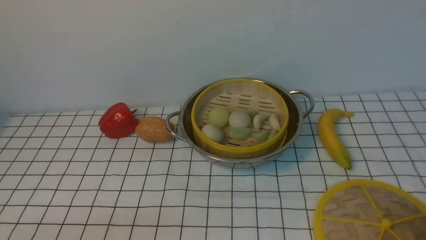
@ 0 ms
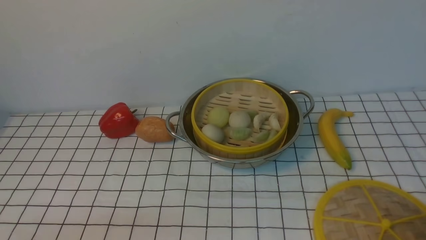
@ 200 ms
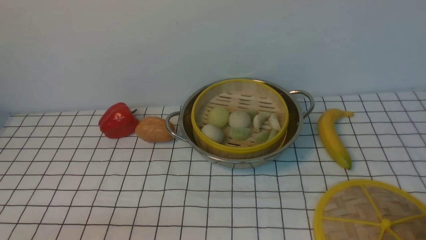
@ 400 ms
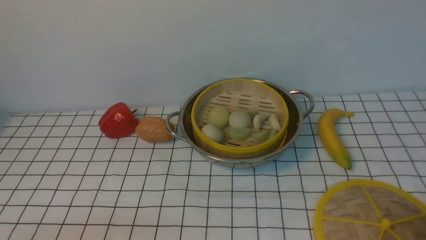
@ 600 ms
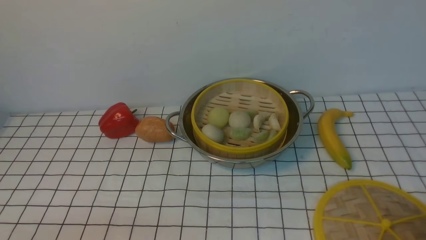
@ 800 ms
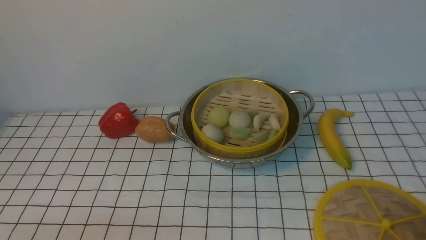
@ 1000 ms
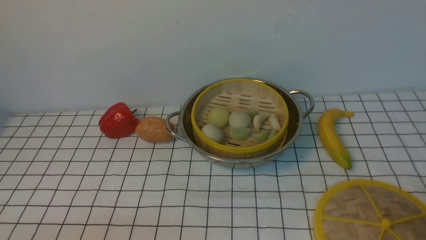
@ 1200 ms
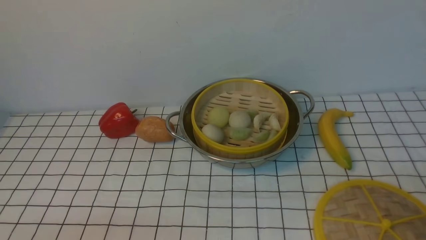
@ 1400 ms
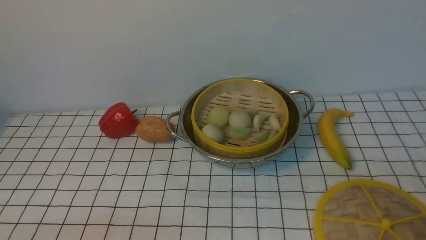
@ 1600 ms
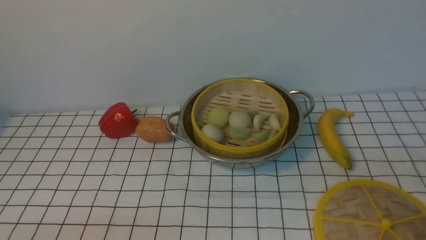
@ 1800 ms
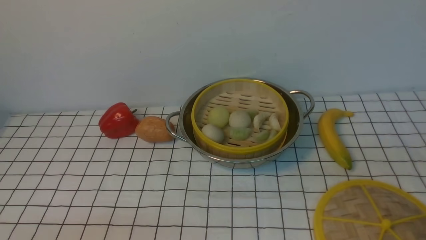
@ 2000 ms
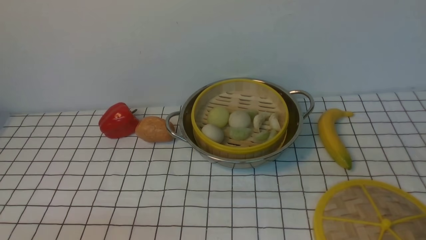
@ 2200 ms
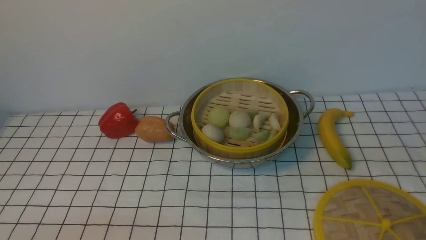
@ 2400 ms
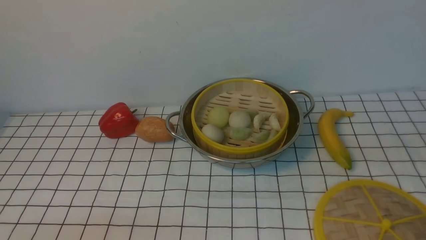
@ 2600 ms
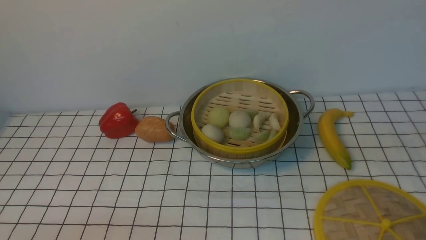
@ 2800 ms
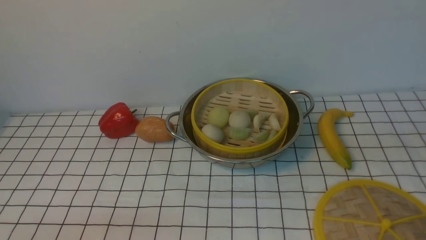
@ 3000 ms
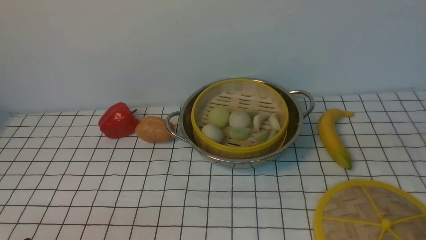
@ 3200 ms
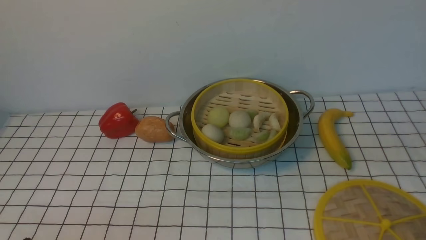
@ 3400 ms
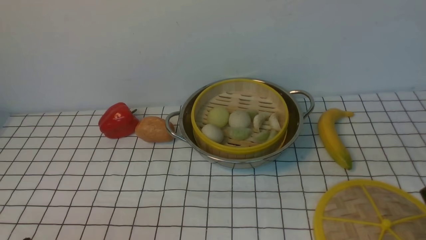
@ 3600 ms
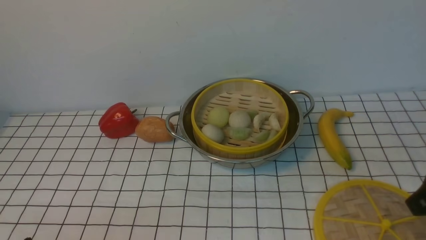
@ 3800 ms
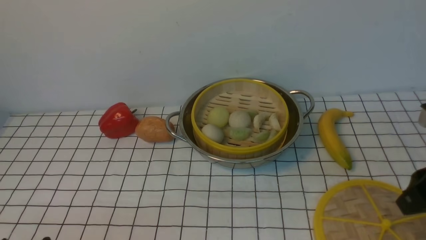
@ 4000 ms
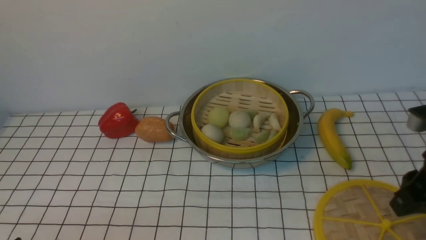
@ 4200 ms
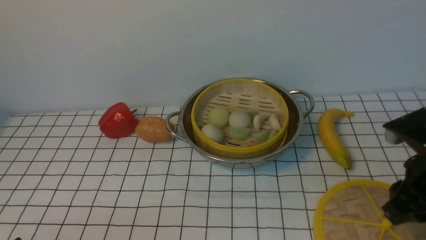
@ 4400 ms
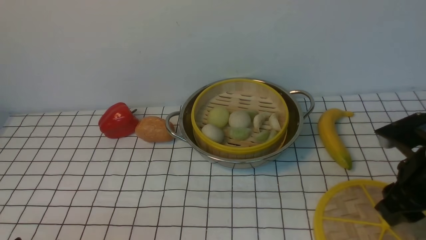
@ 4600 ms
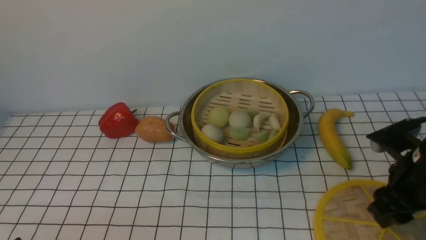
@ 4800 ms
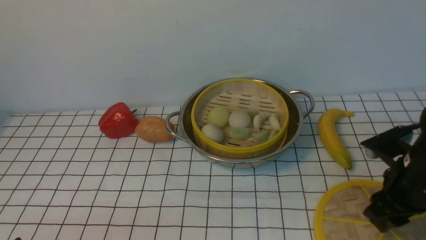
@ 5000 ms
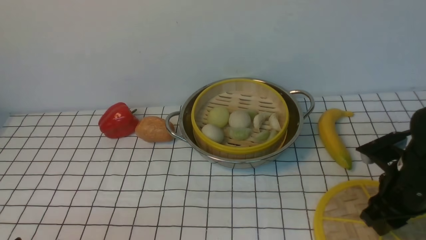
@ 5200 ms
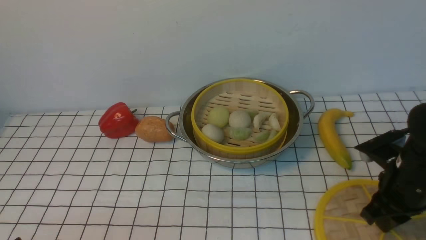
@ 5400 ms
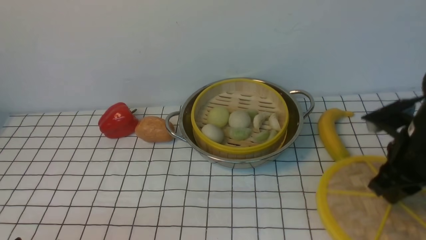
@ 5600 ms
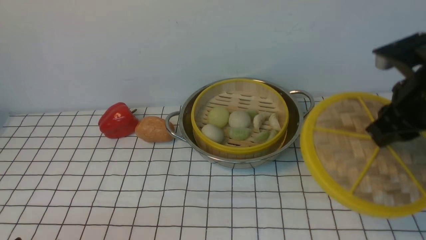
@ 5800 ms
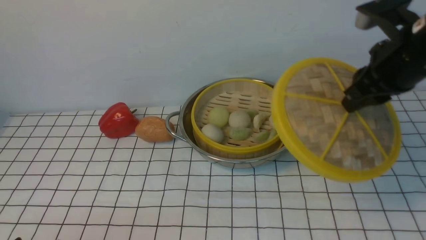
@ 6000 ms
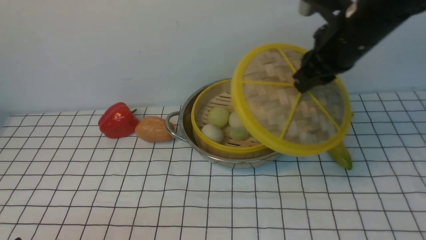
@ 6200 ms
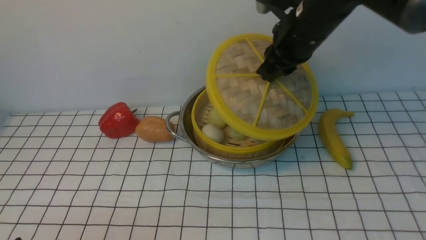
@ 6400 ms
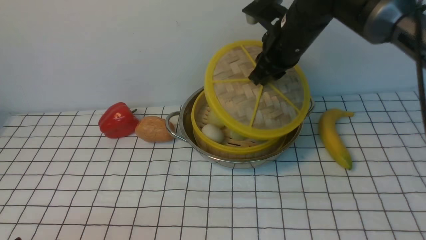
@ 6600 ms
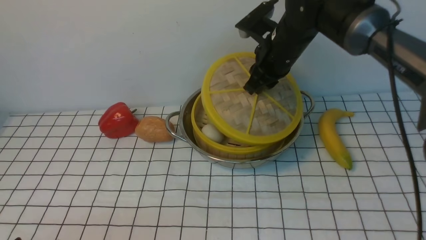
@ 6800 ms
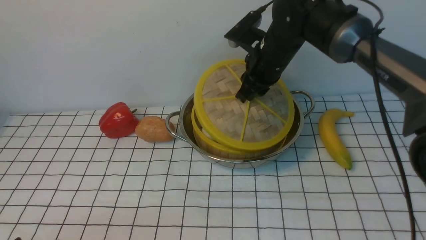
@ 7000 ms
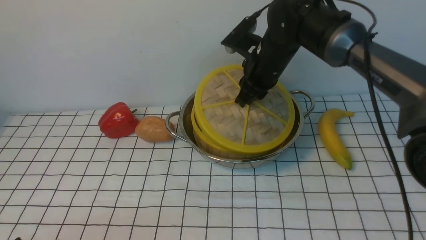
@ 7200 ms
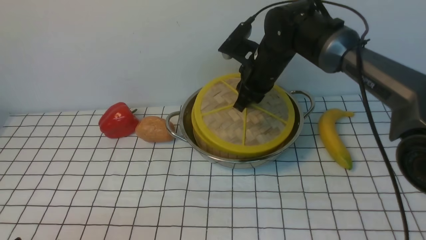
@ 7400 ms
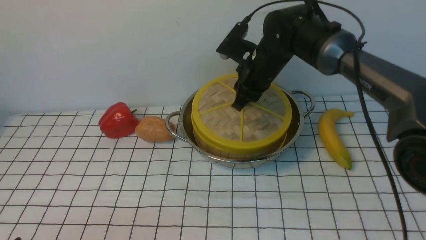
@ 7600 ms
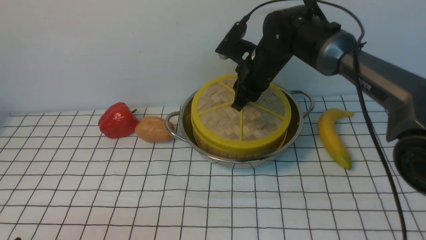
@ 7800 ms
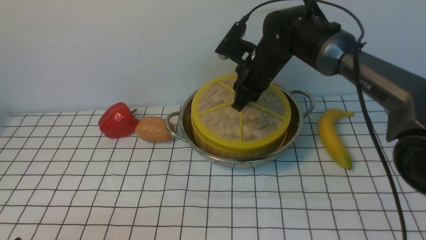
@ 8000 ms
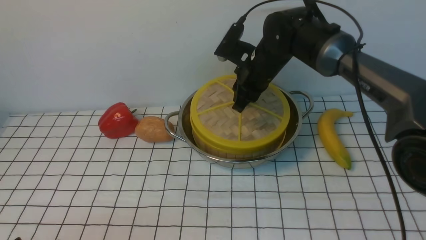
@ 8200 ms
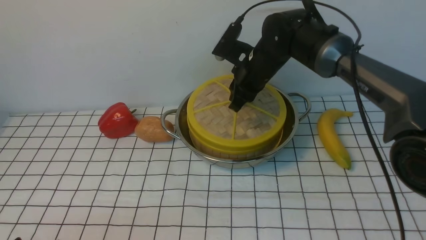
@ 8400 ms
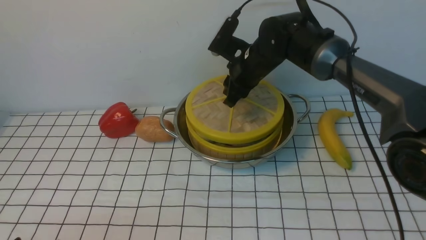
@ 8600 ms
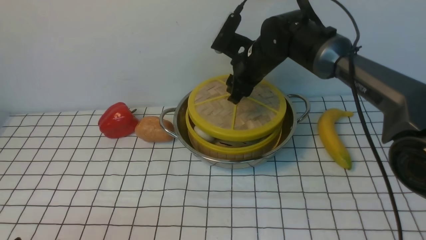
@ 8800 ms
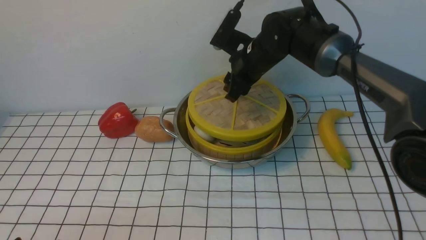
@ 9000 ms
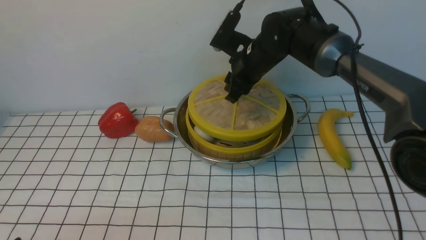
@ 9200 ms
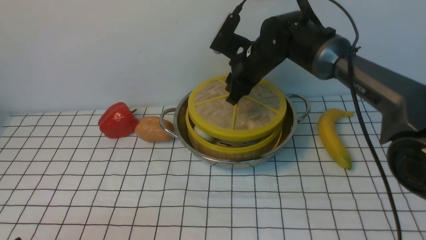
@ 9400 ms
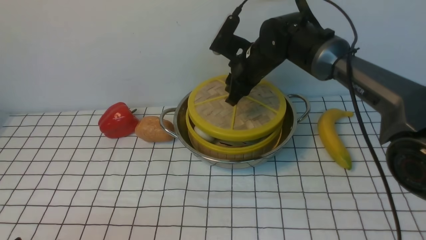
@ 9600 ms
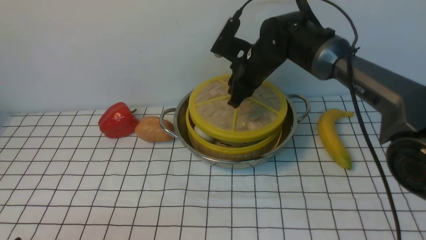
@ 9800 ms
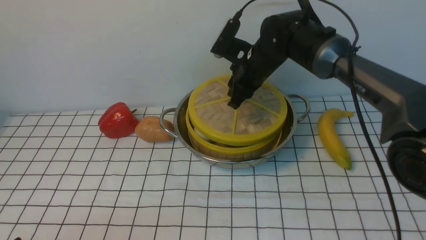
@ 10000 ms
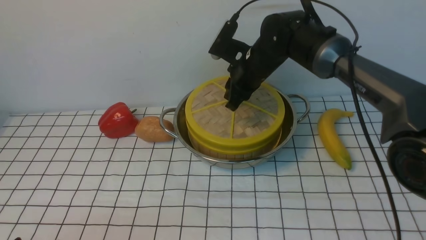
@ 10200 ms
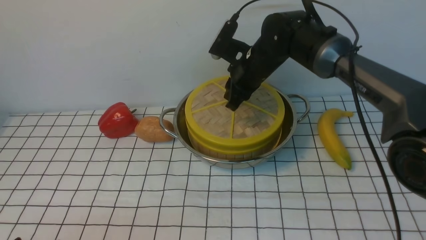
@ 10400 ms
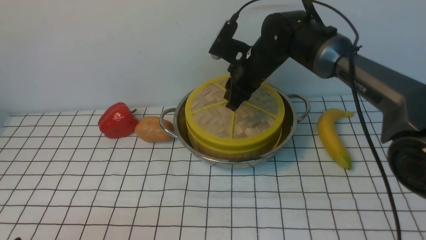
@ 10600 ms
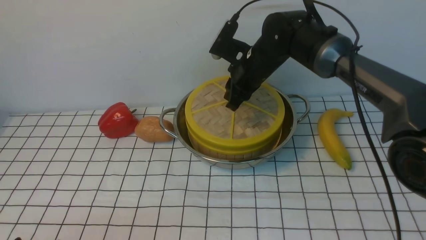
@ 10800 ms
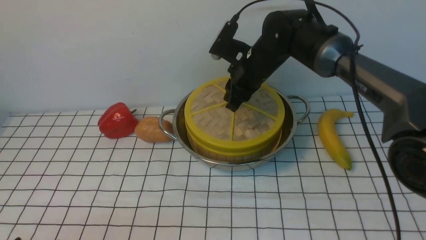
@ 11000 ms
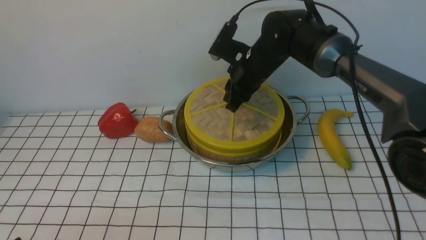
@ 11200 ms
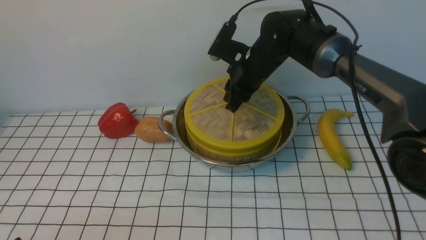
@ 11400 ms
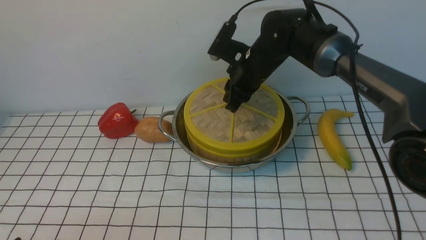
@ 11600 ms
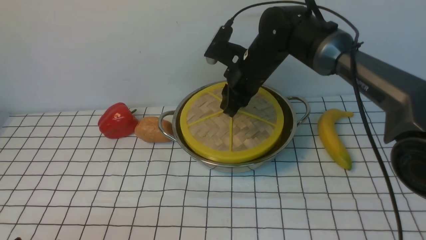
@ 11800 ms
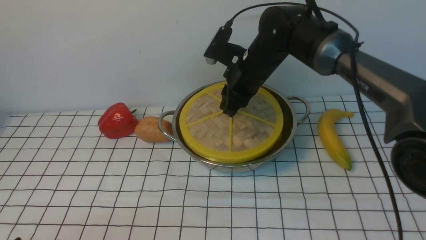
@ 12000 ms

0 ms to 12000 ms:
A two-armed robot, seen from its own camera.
Task of the whole recording: place the steamer in the pot on the white tablecloth, and put the lid on the steamer.
Step, 0 ms to 5600 ms: use the right arm to lift the lid of the steamer.
3000 ms to 4400 ms: The right gripper travels downward and forward by some 10 cm.
4400 ms to 6000 ms: The right gripper is displaced forward, upward and to the left by roughly 15 cm, and closes its fingers.
6000 ms to 7600 ms: The right gripper travels to the left, forward and downward by approximately 20 cm.
7600 ms to 9000 ms: The right gripper opens up.
9000 ms to 10400 ms: The right gripper closes its fingers.
10400 ms to 12000 ms: The grippers stay close to where they were, moving slightly.

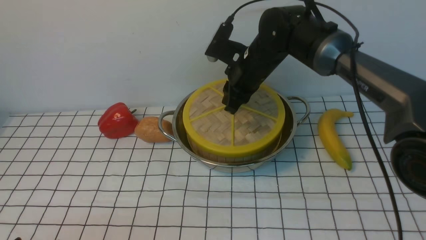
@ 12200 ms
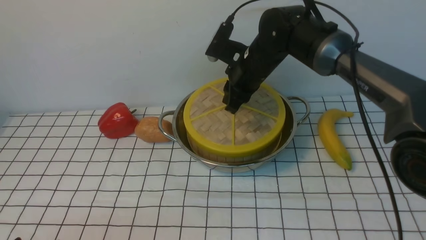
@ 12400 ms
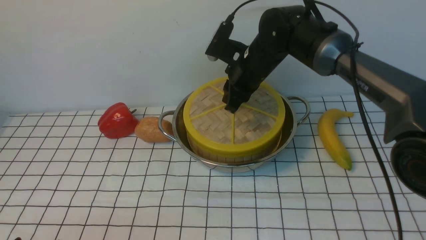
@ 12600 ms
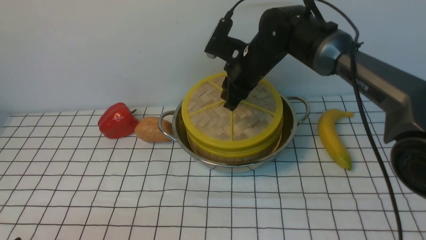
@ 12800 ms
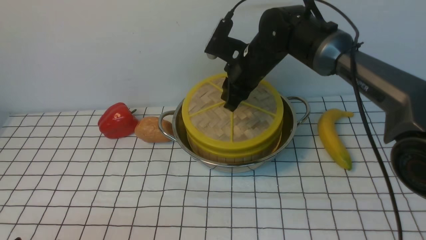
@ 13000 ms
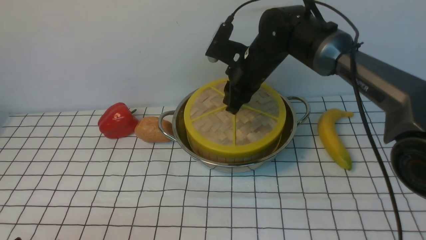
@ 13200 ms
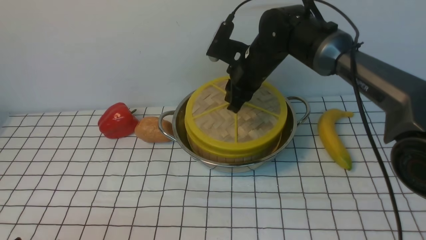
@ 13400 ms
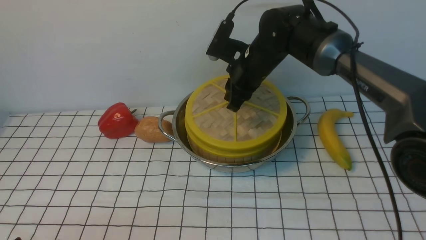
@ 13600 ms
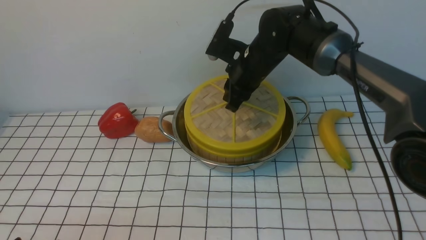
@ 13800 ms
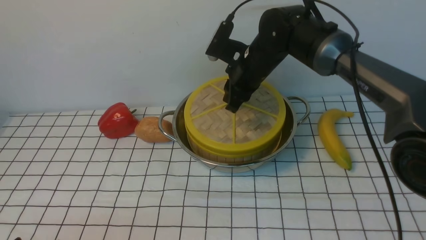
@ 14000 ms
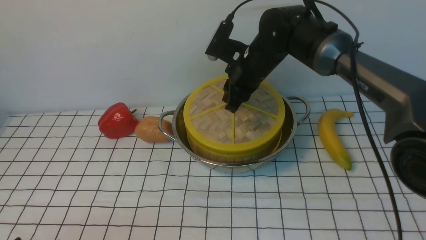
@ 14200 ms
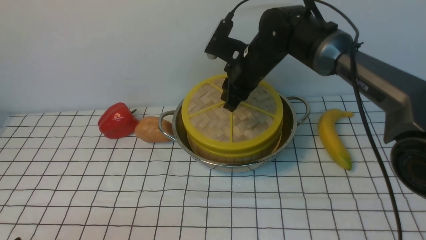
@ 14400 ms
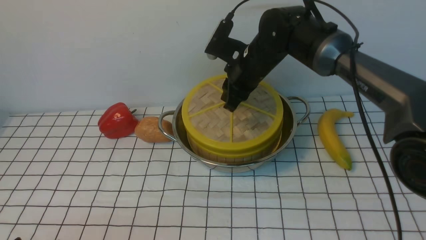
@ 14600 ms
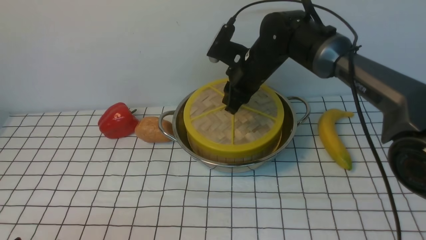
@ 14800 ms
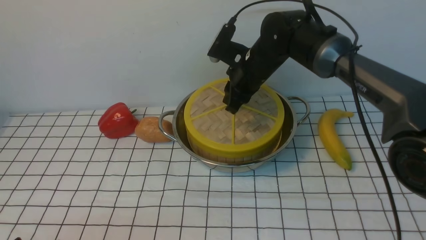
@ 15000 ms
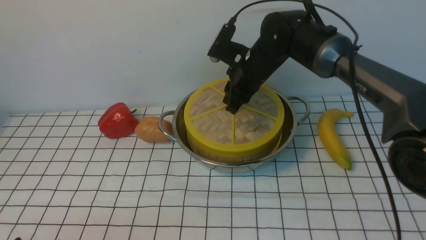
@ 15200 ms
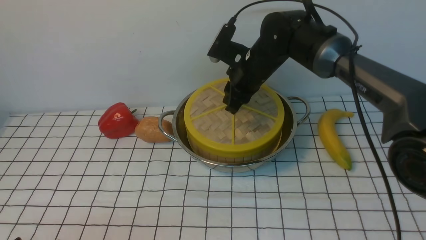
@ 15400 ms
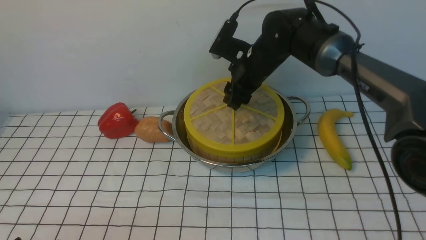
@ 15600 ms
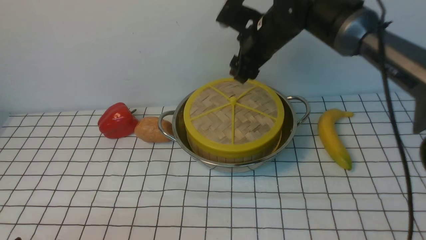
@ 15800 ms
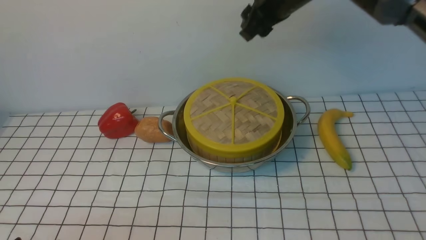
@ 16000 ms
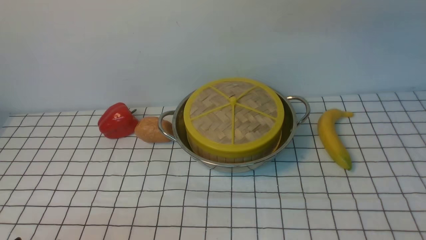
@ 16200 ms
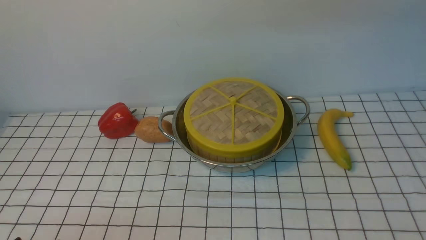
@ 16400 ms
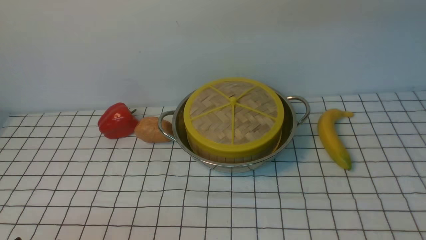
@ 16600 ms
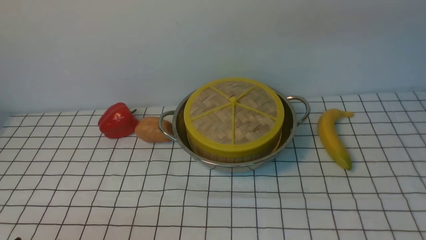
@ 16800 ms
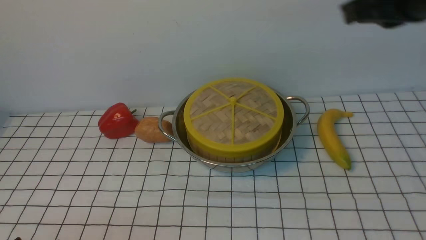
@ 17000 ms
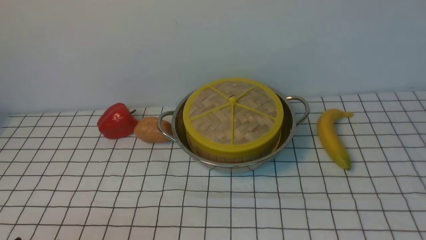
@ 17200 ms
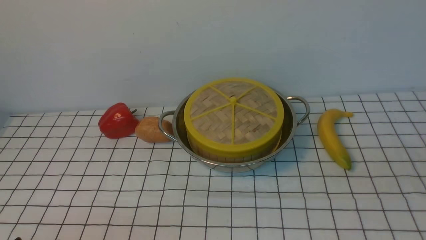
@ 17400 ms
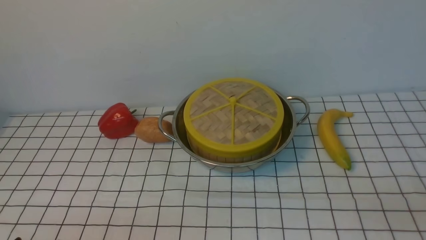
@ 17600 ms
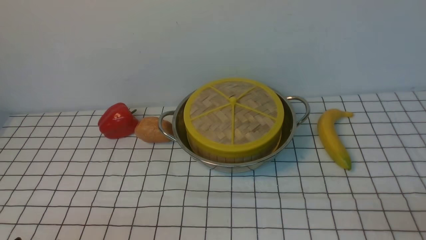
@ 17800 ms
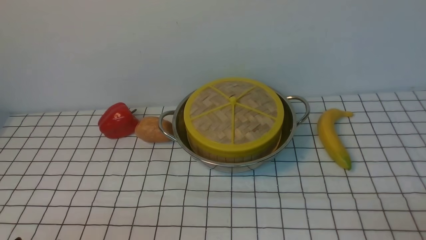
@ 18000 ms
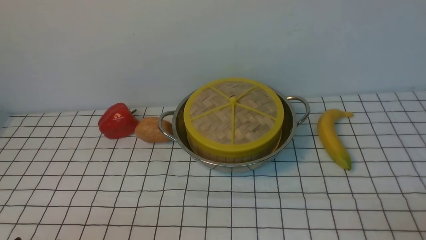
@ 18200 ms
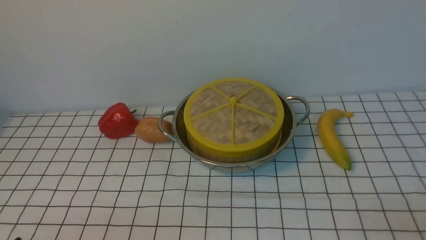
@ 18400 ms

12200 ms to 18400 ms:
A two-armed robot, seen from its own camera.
Task of the whole recording: place the steamer in the pot on the white tablecloth, and put the lid on the steamer.
Step, 12200 ms to 15800 ms: use the right arm to place the steamer lid on the steamer.
12200 ms to 15400 ms: Both grippers stay about where they are.
15400 ms to 16800 ms: The right gripper goes roughly 30 cm upward, backward and to the right, and closes its fingers.
